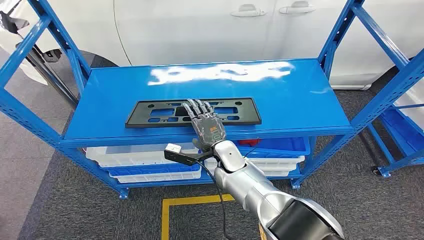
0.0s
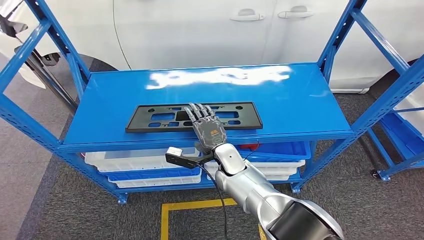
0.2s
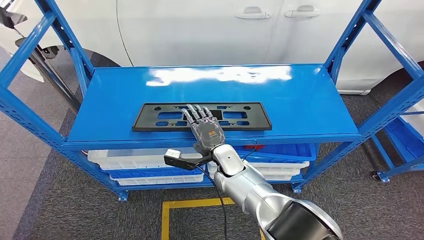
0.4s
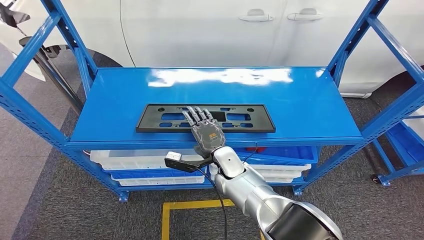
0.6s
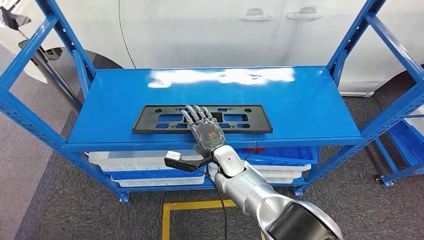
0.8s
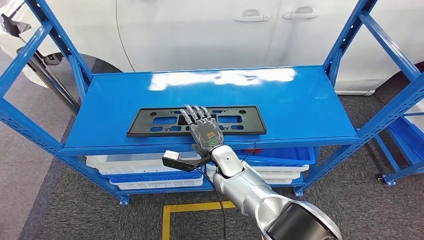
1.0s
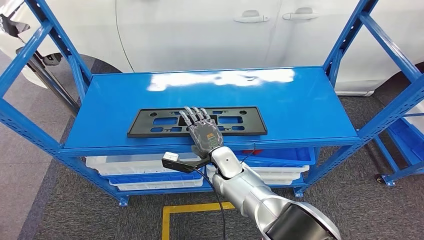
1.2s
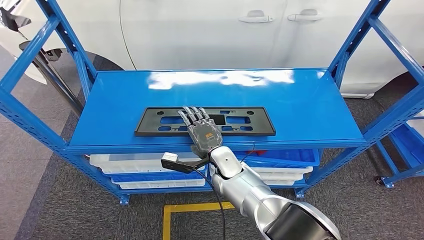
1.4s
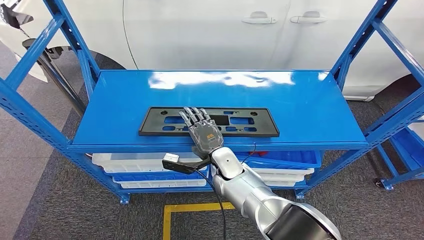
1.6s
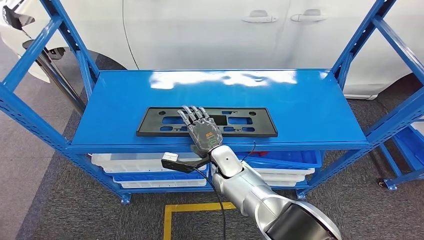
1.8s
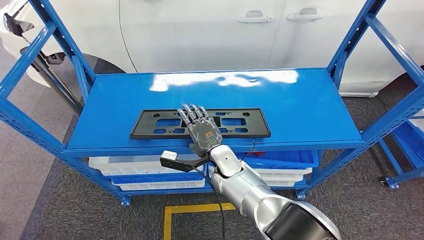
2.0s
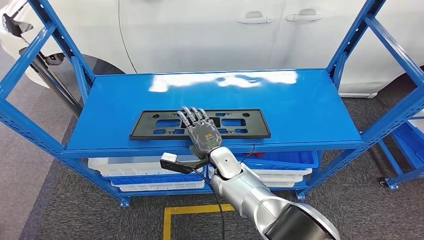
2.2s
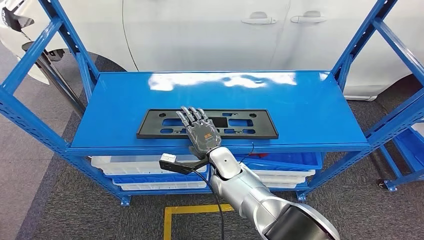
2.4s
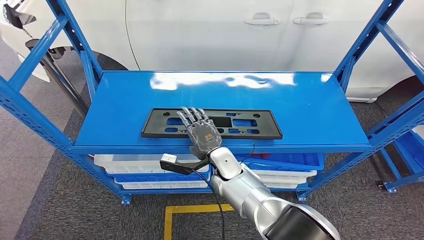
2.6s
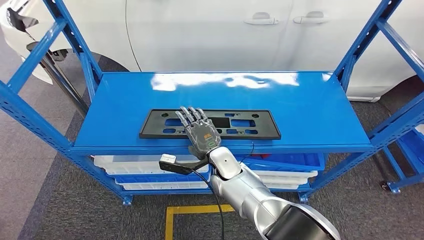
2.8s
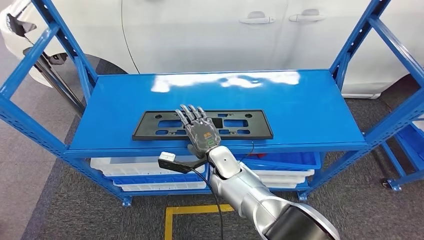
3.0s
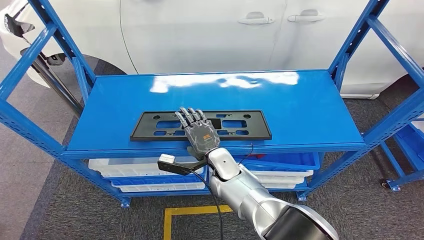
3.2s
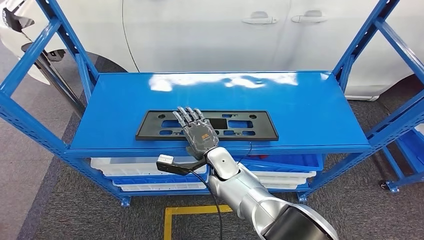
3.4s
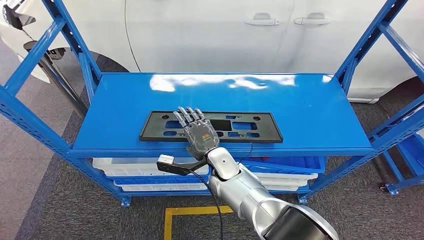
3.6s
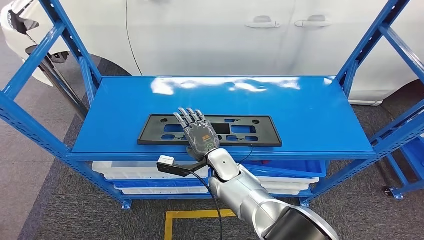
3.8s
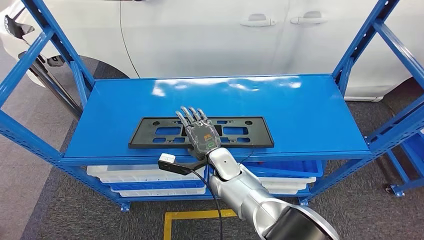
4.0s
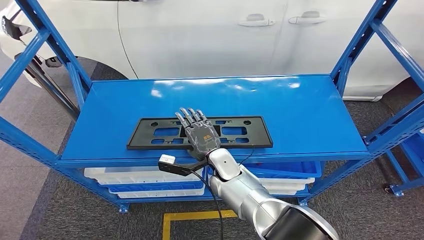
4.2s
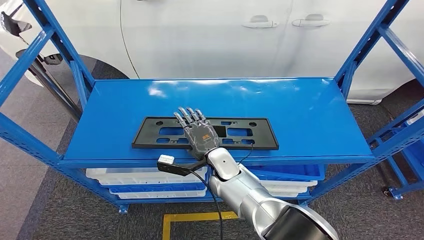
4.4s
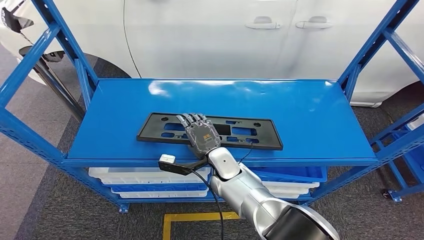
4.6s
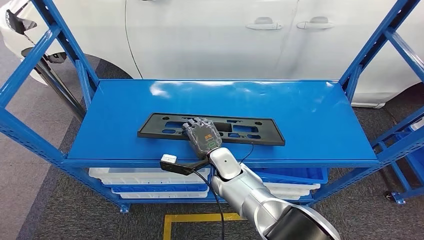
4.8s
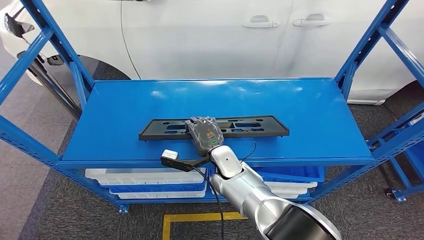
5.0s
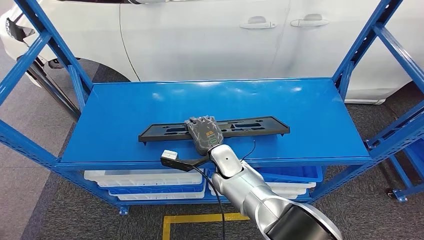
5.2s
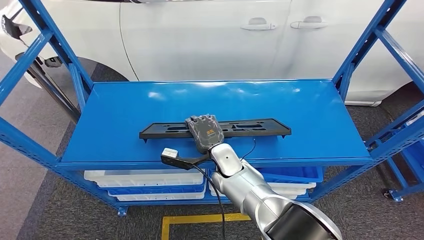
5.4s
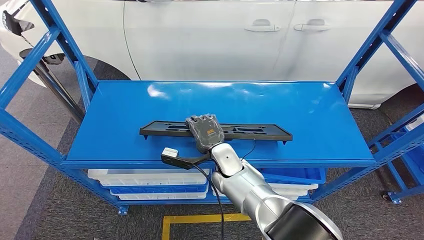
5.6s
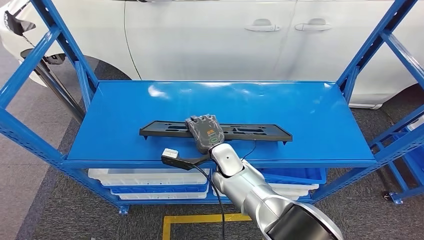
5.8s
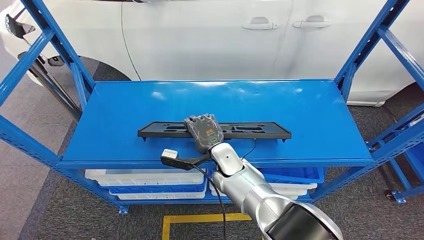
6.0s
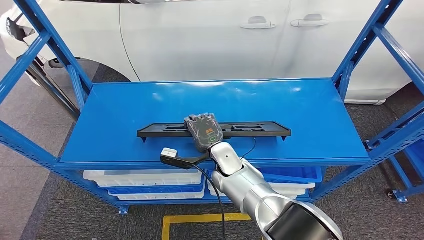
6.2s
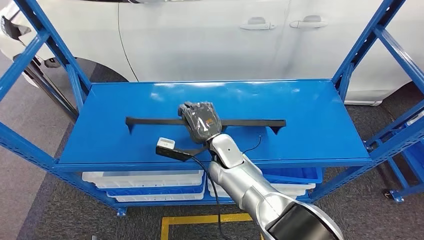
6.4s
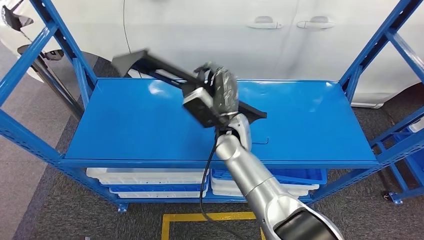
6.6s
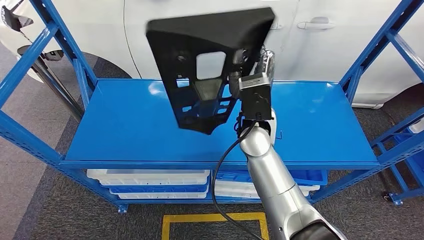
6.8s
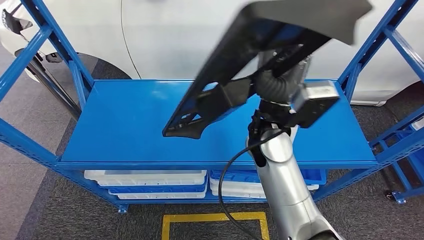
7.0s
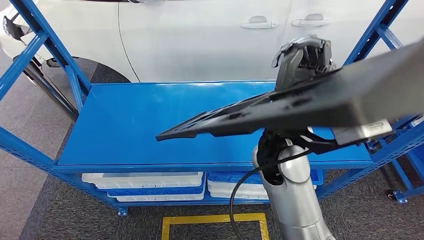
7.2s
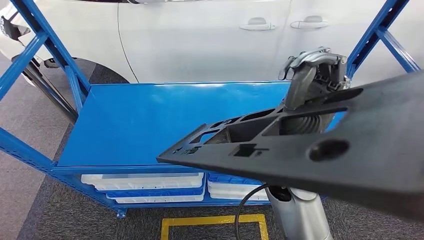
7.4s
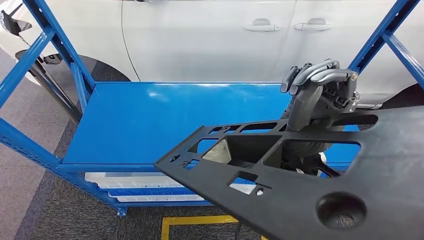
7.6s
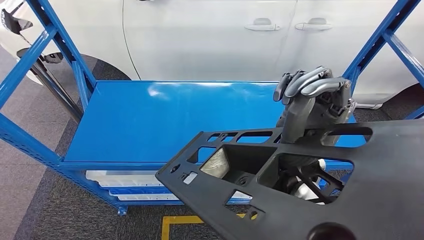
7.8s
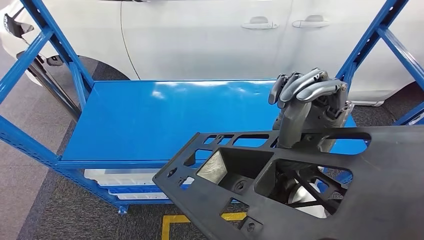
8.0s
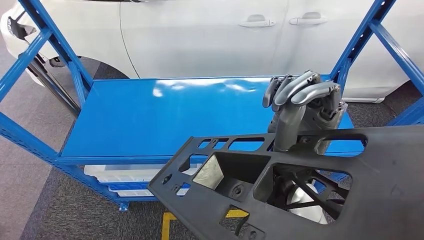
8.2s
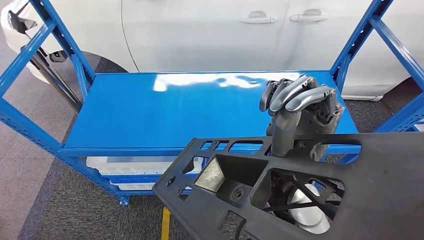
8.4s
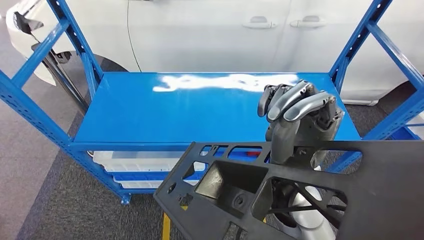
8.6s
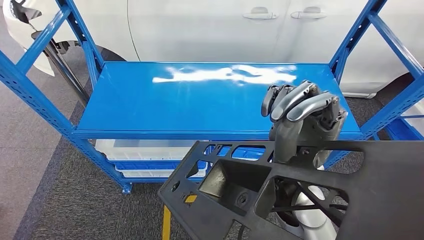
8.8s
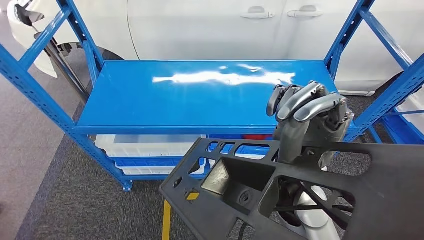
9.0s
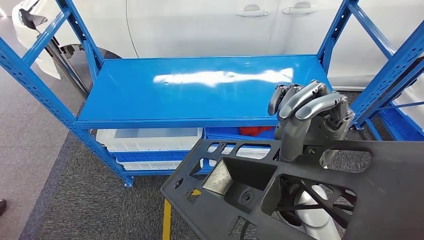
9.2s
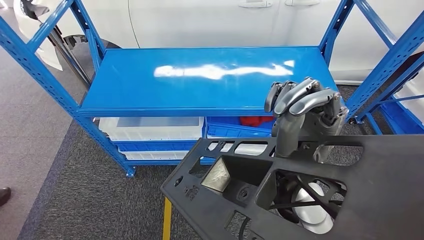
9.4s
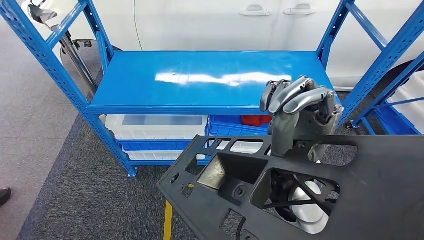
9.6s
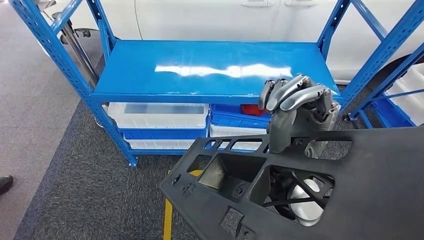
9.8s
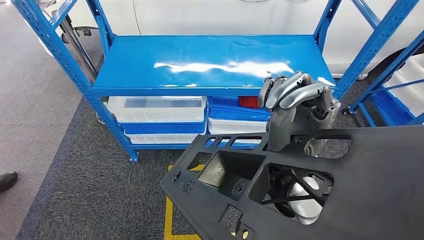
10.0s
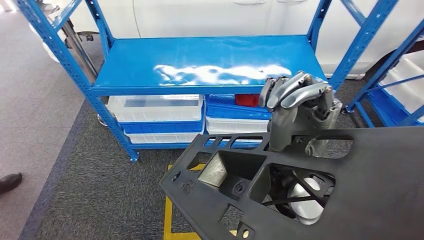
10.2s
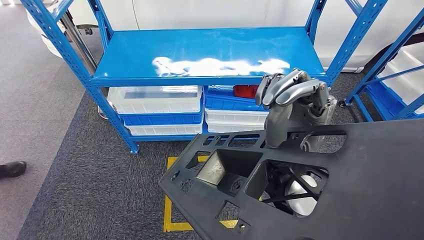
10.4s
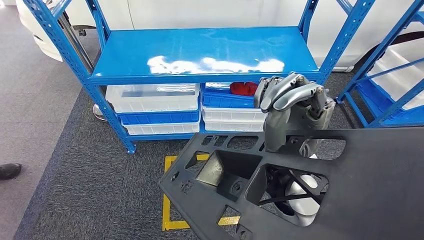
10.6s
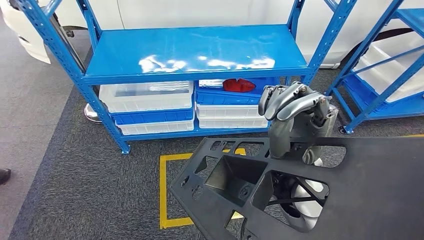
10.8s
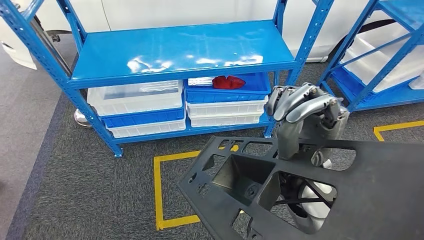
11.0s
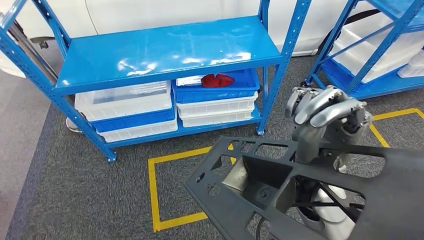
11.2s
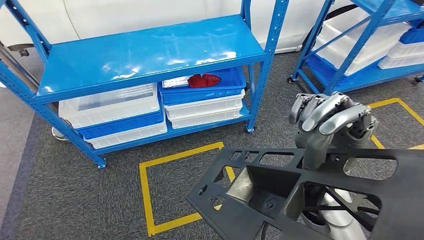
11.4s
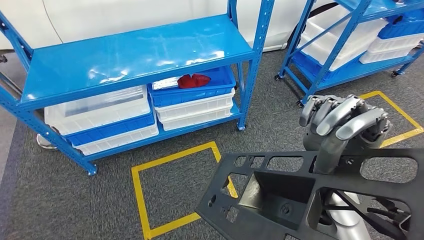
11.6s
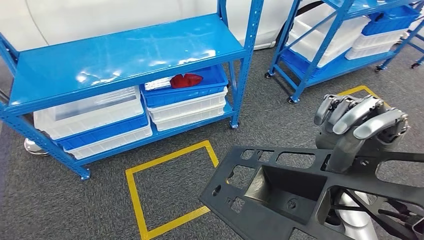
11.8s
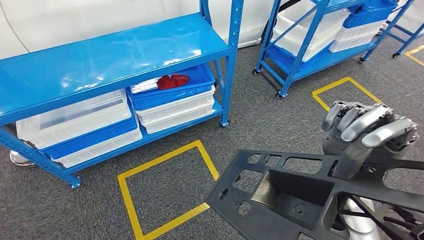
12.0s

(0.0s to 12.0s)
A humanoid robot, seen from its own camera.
Step, 0.0s - 8.0s: Pick up the large material from the shelf.
4.4s - 6.0s: The hands move only a little.

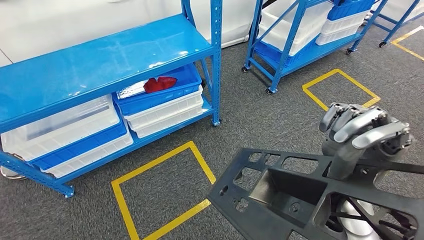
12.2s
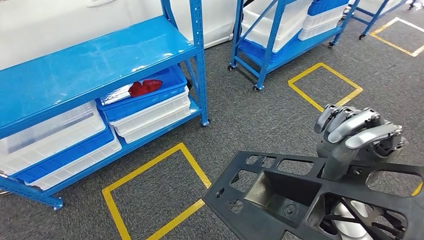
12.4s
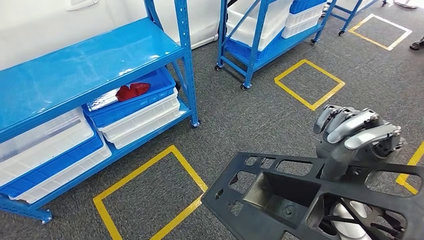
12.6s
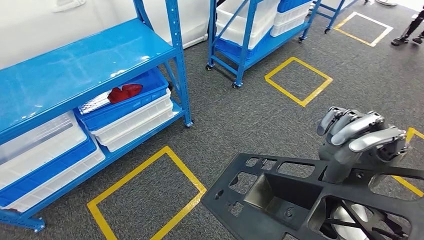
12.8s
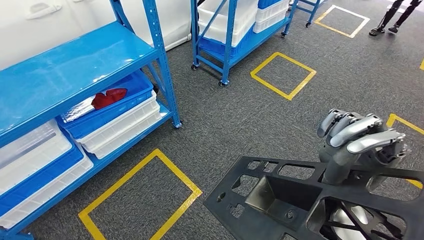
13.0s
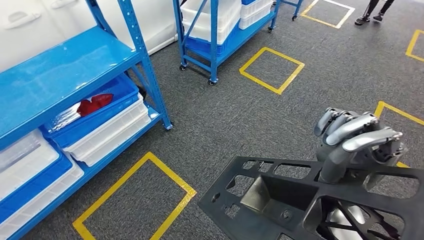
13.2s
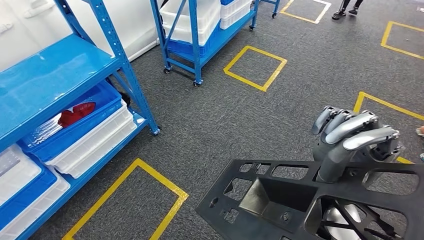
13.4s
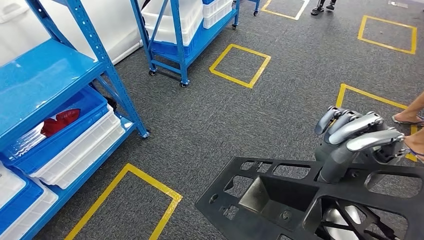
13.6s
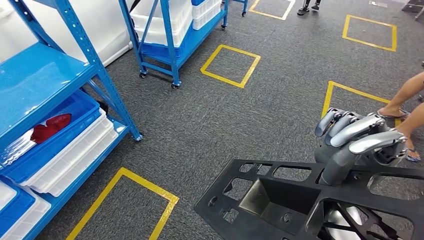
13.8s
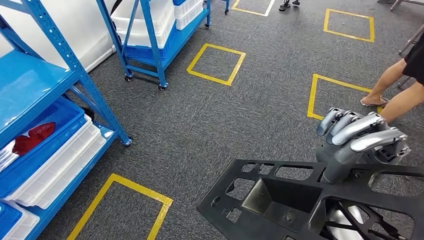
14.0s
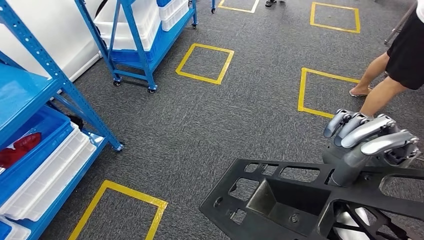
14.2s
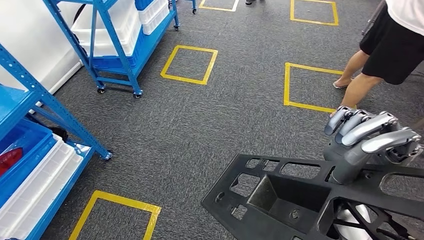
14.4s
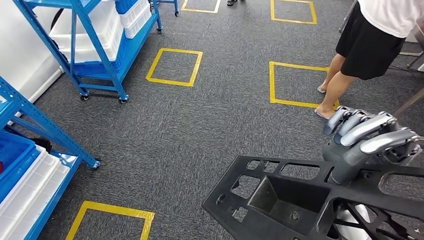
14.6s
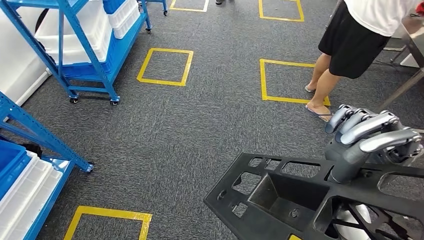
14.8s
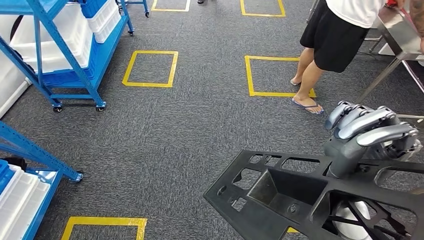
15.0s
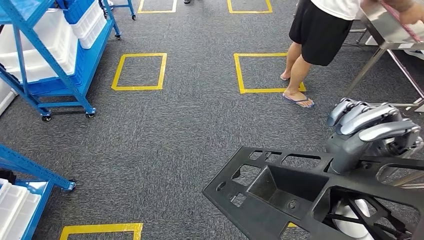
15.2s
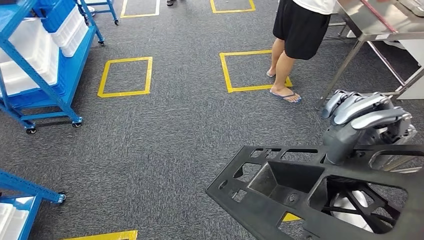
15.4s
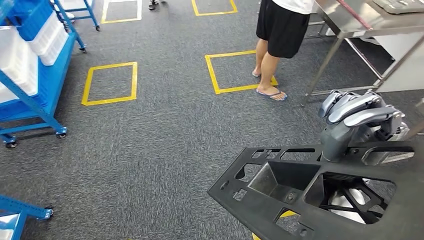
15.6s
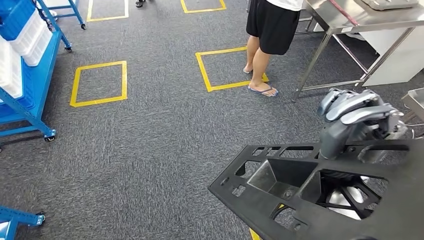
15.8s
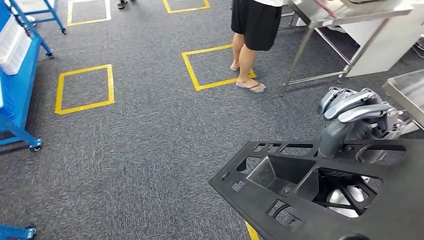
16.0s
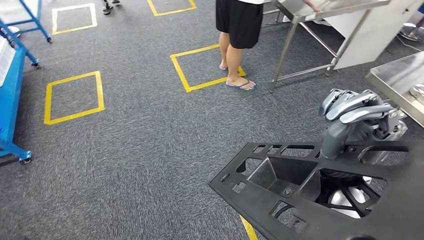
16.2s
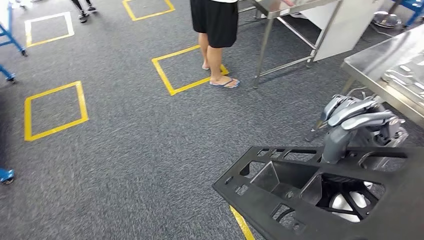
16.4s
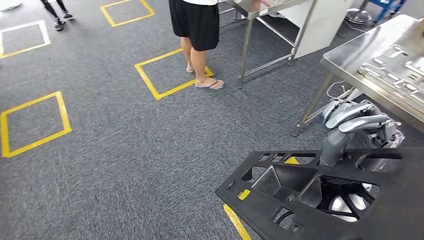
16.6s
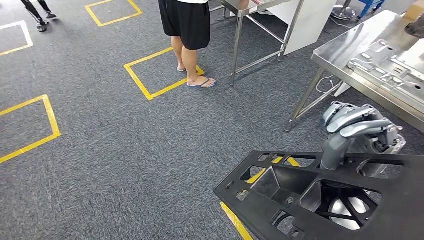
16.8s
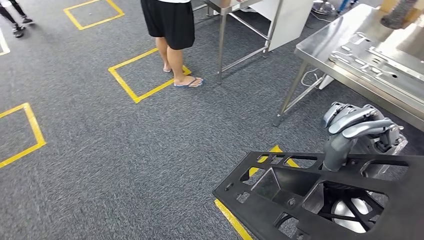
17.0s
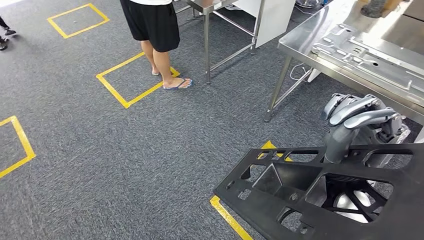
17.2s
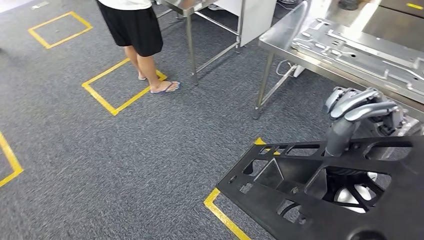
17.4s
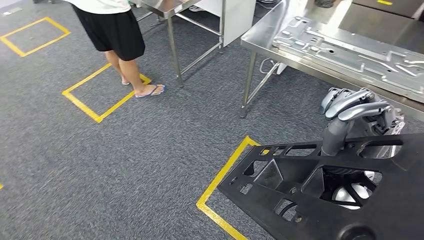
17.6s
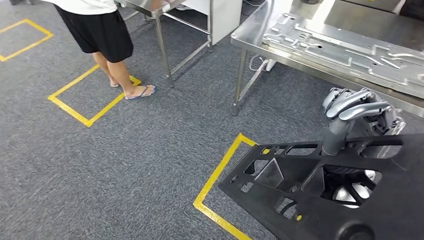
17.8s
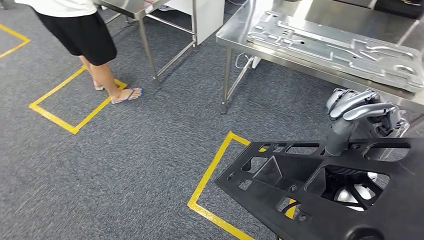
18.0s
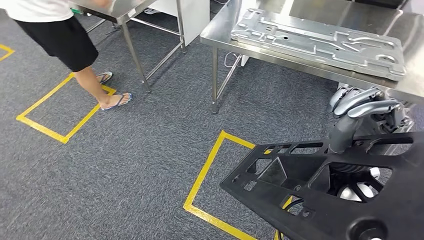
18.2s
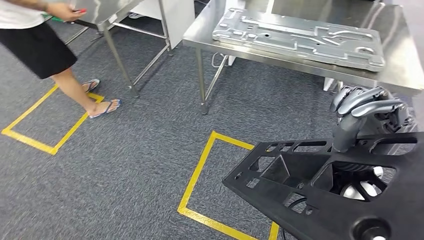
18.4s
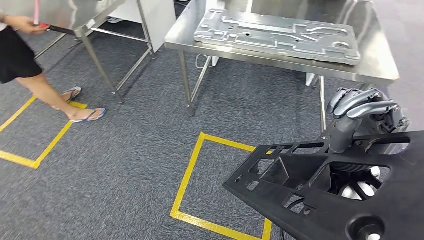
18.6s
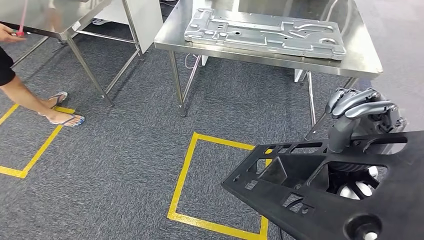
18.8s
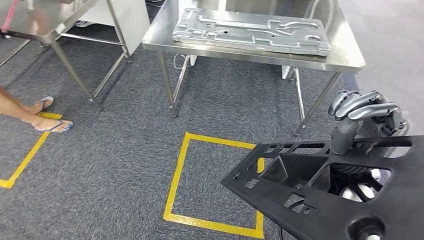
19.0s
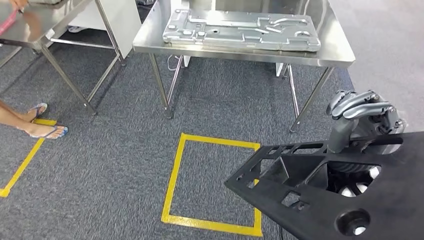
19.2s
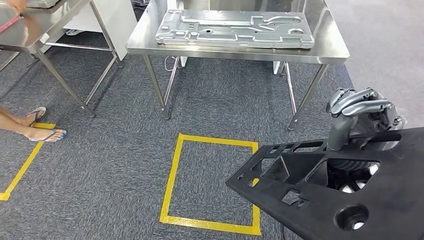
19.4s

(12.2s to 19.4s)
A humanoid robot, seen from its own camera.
Step, 12.2s - 19.4s: Move the large material to the workbench.
